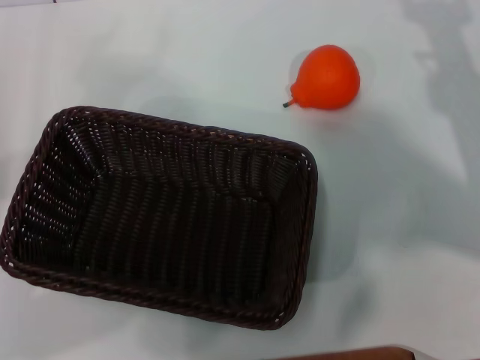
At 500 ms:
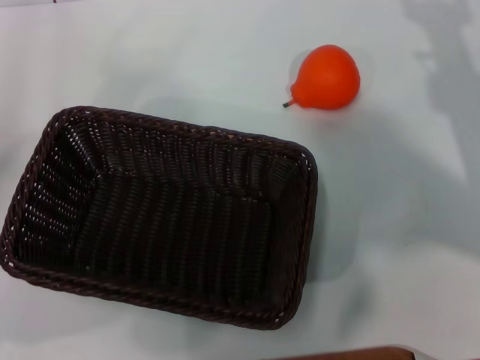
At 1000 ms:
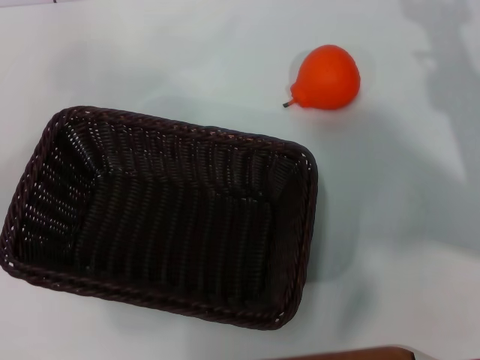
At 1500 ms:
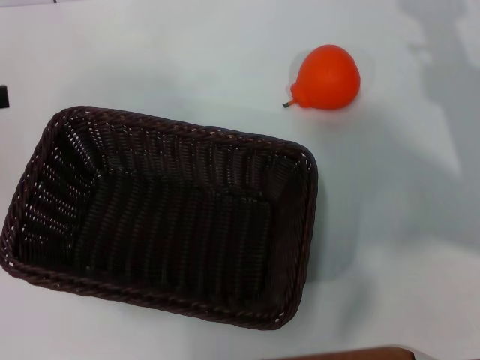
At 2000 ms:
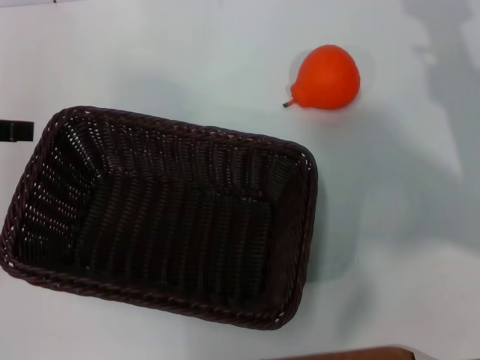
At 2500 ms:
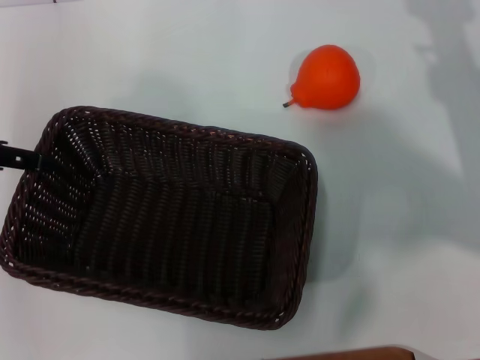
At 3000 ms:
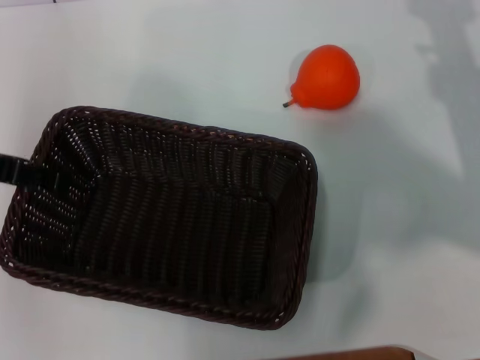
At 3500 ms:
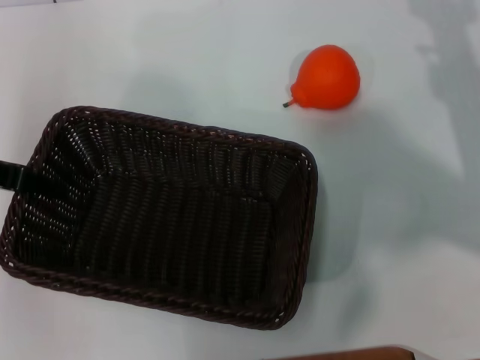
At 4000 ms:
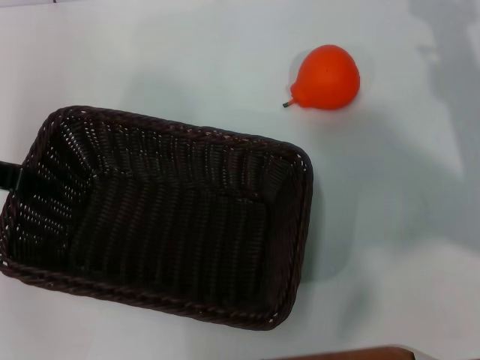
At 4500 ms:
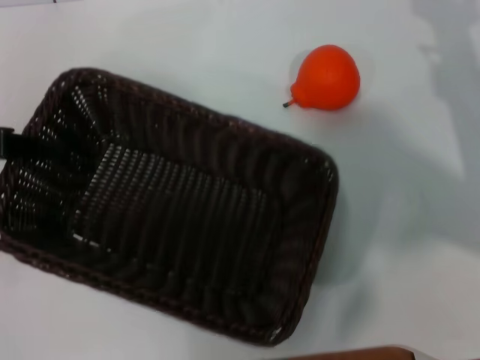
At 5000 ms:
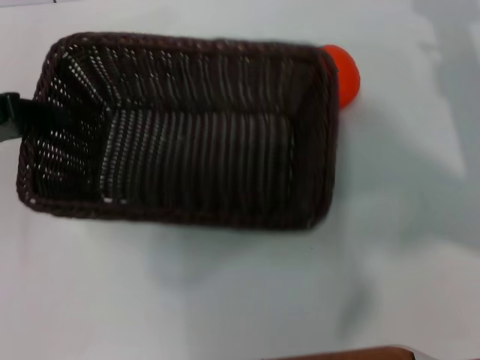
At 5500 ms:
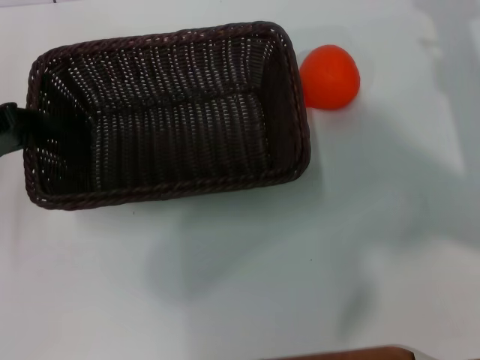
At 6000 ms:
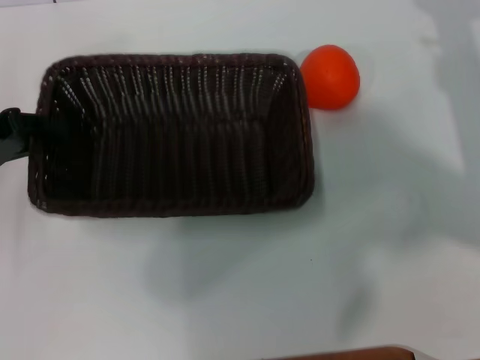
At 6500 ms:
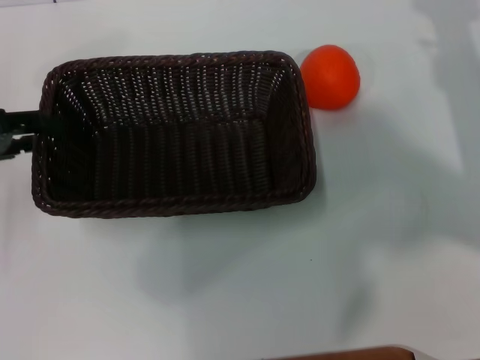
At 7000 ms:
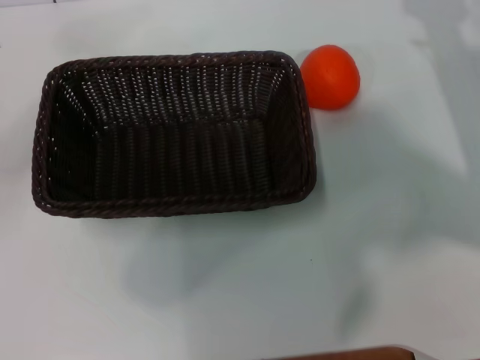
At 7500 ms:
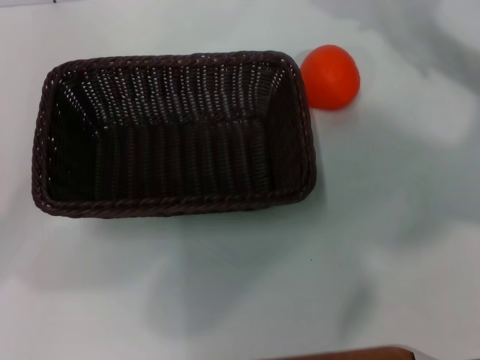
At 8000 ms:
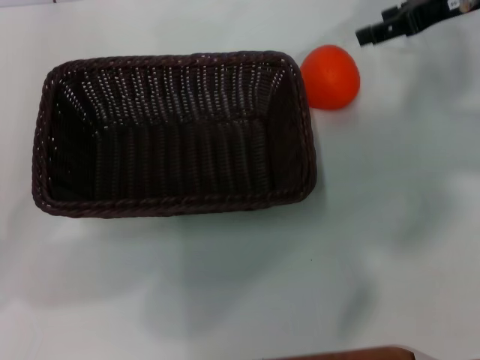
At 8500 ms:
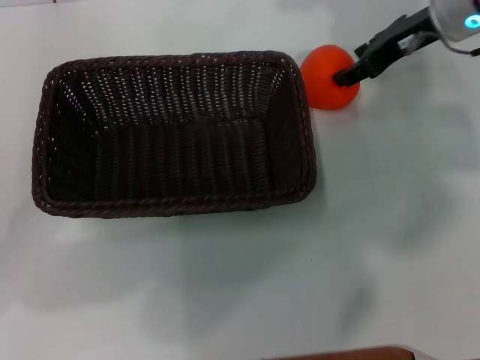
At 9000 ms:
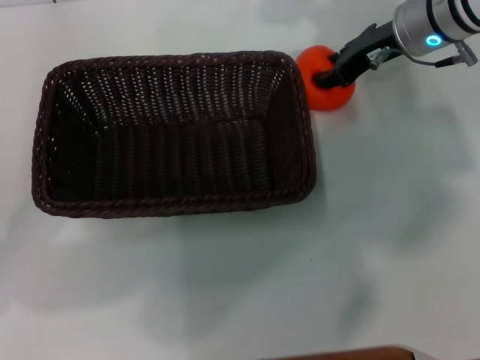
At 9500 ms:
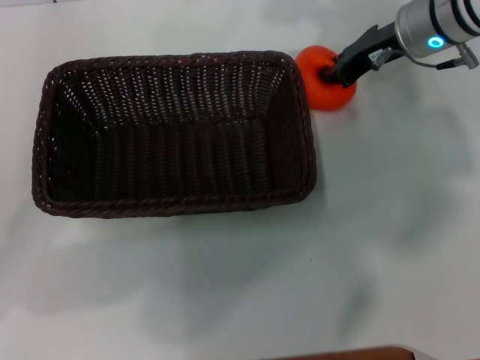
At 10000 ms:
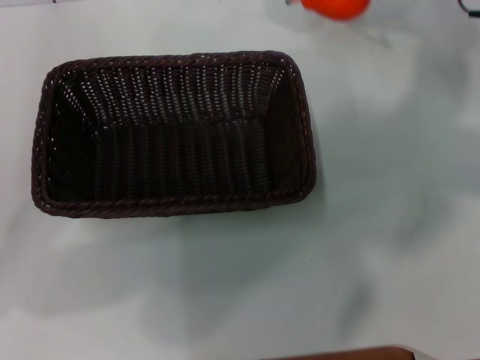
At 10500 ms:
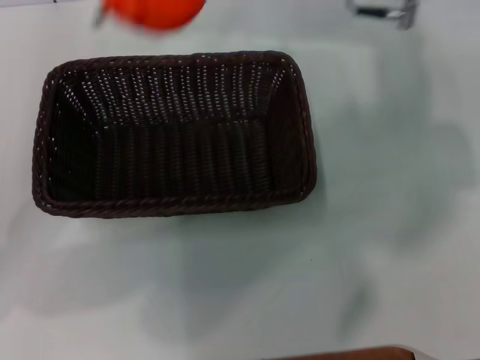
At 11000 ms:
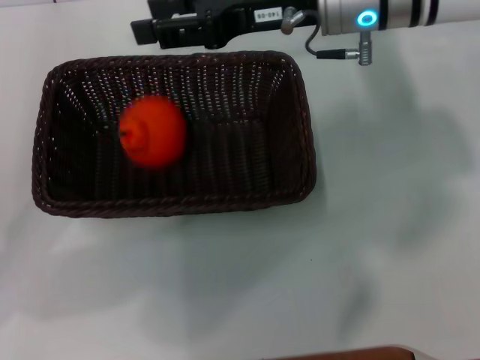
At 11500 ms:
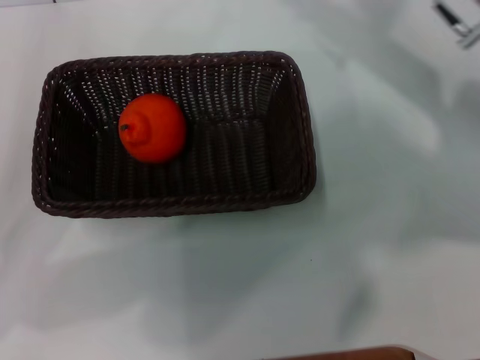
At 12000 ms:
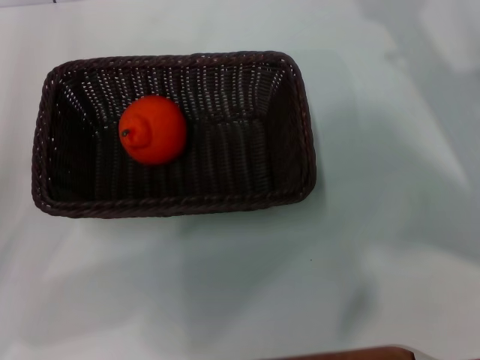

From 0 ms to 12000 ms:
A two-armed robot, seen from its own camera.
Task of the whole recording: the left gripper pick up the black basket and place it horizontally in the middle of the table, the right gripper pick up the orange and place it into the black basket.
Step, from 0 ms to 4500 ms: Pick up the dark basket with the left gripper.
Step, from 5000 ms to 6500 ms: Place the dark basket in the center of view with the left gripper.
Step, from 7000 ms to 9500 ms: Pick up the orange with the right gripper.
Step, from 10000 ms to 10500 ms: Place the orange into the dark basket with the right gripper.
From 0 ms to 2000 ms: The left gripper heads upward and forward, covering roughly 15 cm.
From 2000 ms to 4000 ms: The left gripper shifts by approximately 5 cm, and closes.
From 4000 ms to 6000 ms: The left gripper ends up roughly 5 cm from where it was.
From 6000 ms to 8000 ms: The right gripper travels upward and forward by about 15 cm; the left gripper is displaced backward by roughly 5 cm, and opens its fingers.
From 8000 ms to 10000 ms: The right gripper reaches roughly 10 cm to the left, then returns, and closes up.
From 10000 ms to 12000 ms: The right gripper shifts about 15 cm backward and downward, reaches roughly 15 cm to the left, then returns, and opens.
